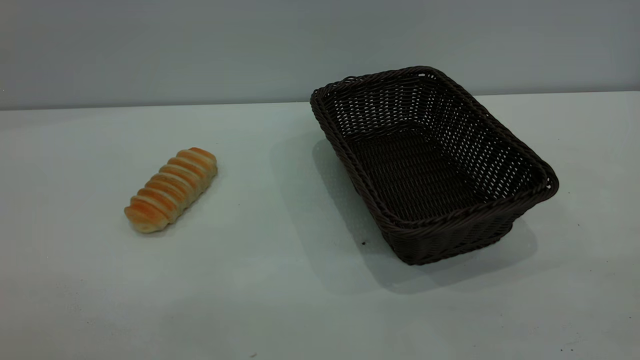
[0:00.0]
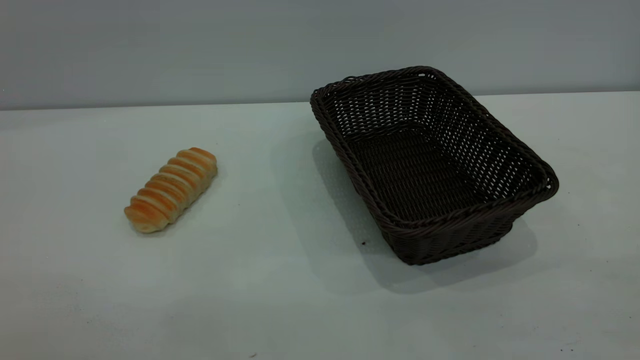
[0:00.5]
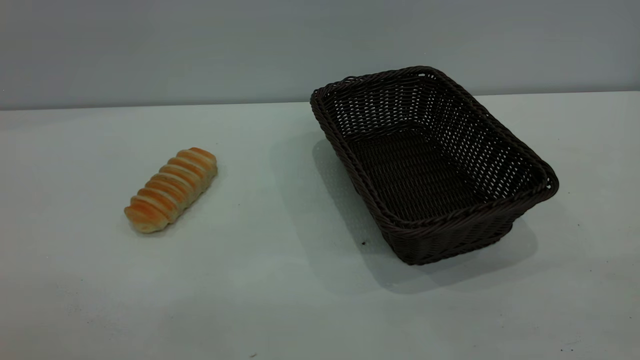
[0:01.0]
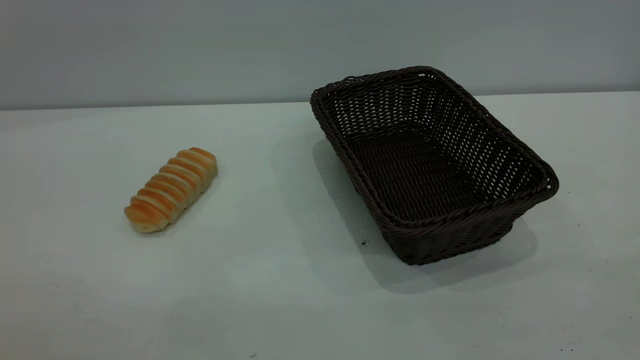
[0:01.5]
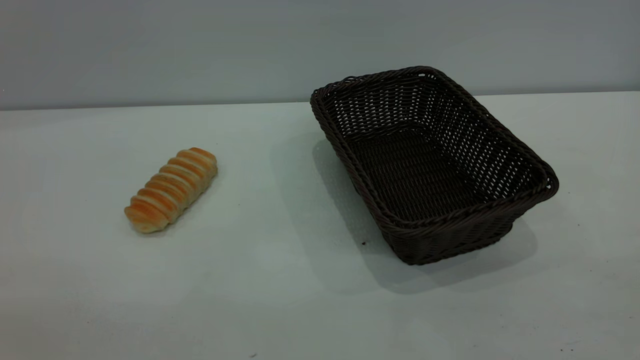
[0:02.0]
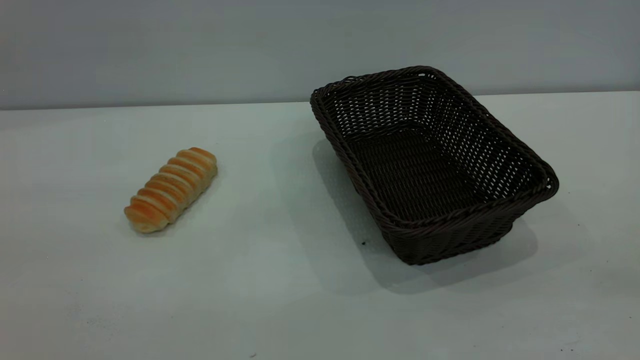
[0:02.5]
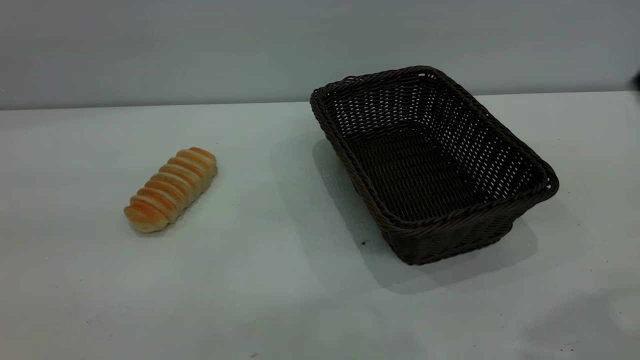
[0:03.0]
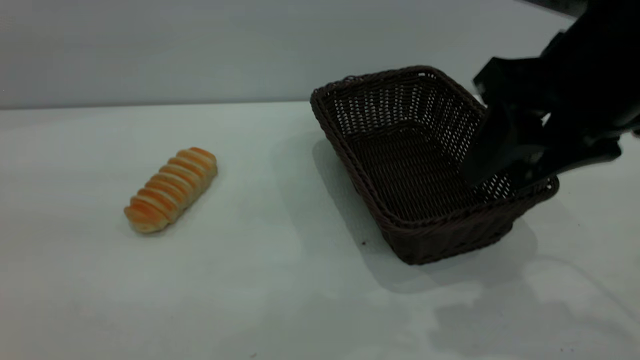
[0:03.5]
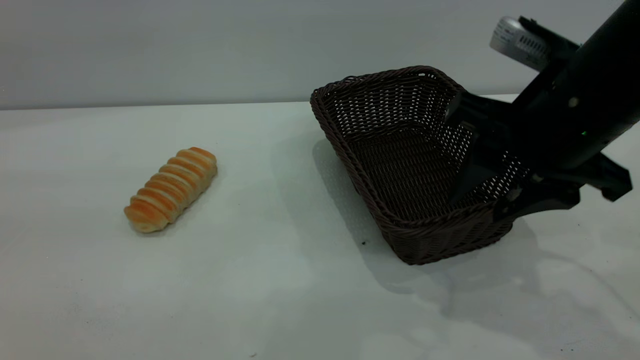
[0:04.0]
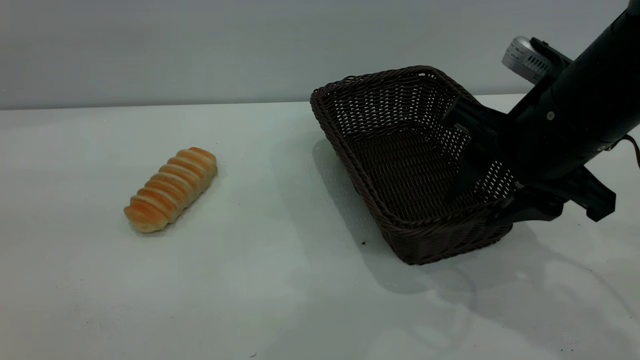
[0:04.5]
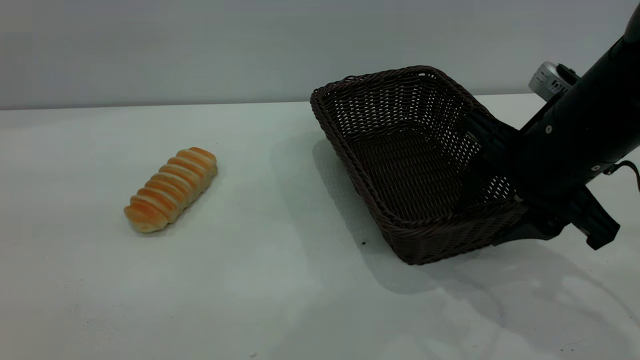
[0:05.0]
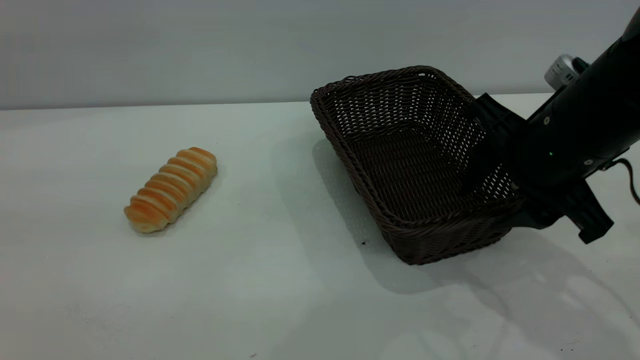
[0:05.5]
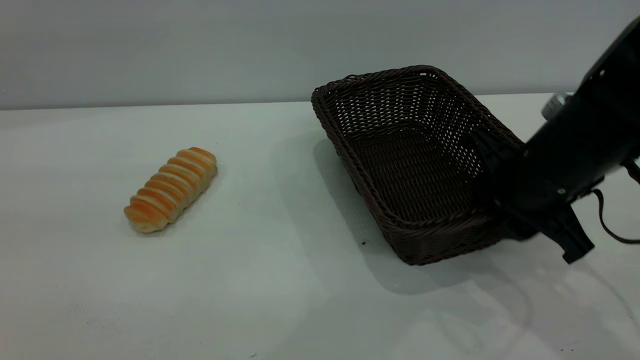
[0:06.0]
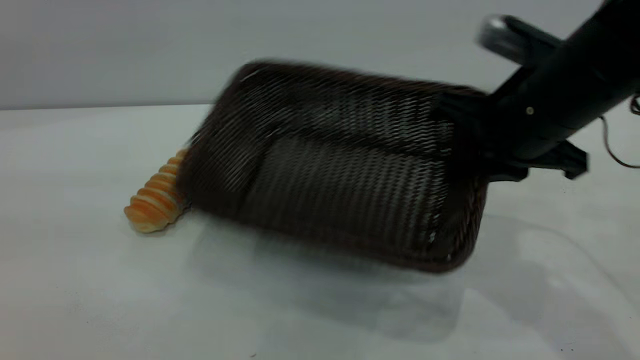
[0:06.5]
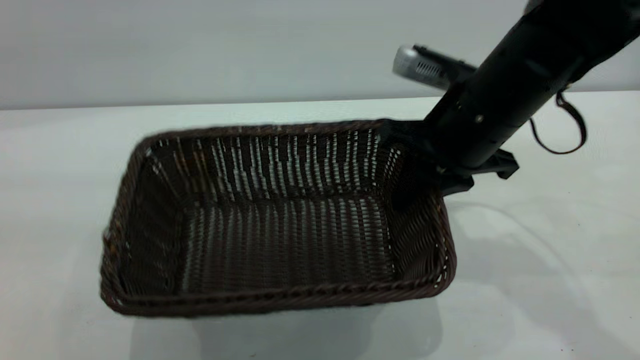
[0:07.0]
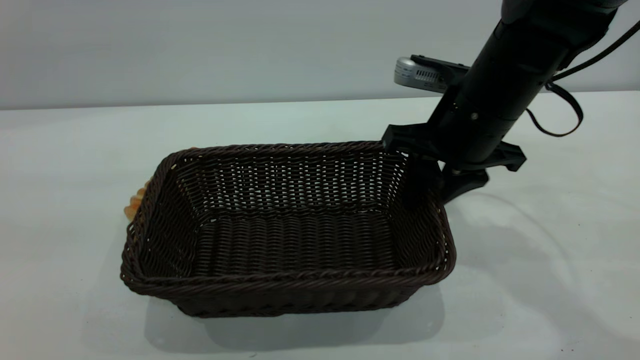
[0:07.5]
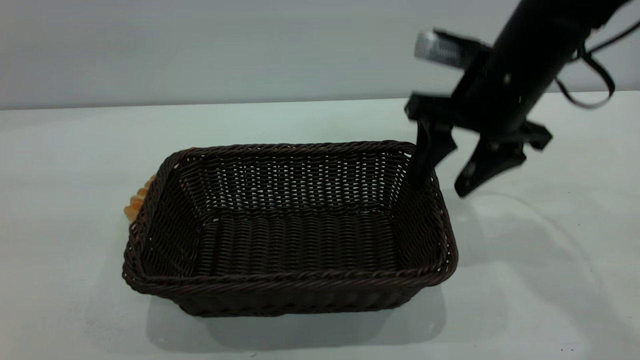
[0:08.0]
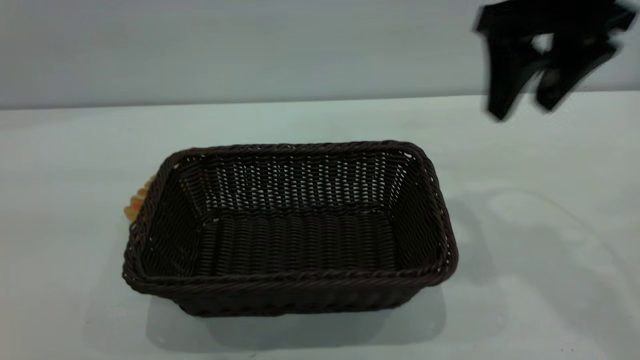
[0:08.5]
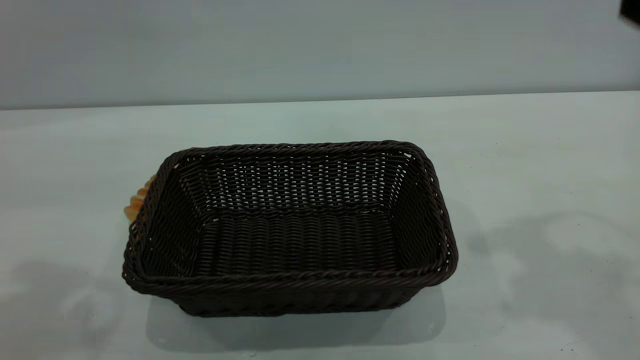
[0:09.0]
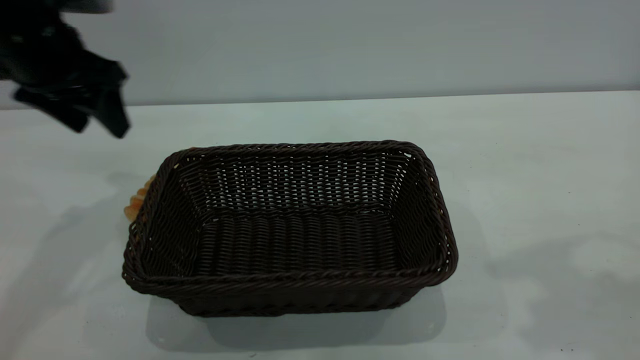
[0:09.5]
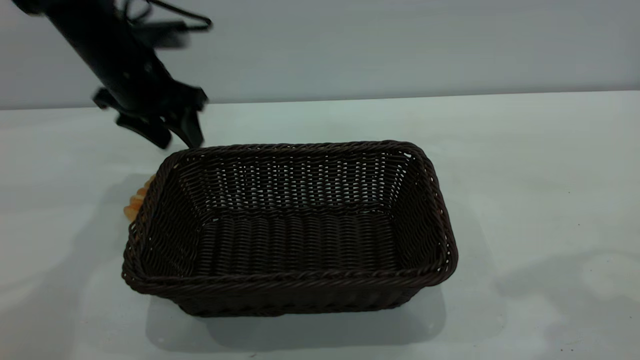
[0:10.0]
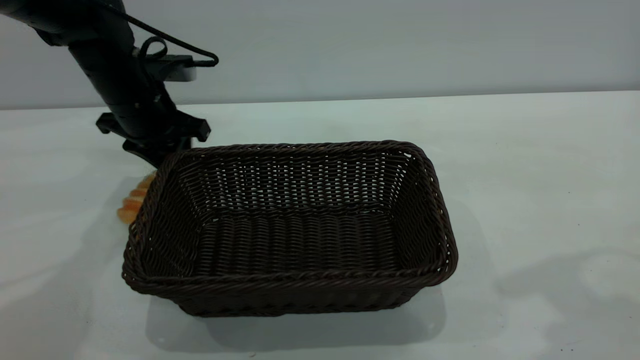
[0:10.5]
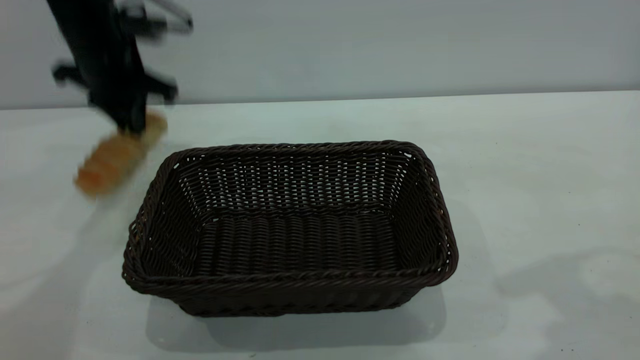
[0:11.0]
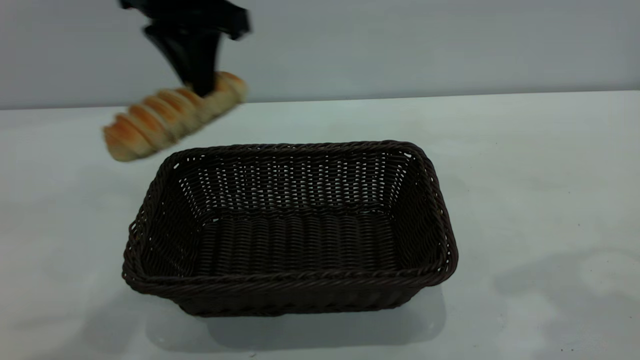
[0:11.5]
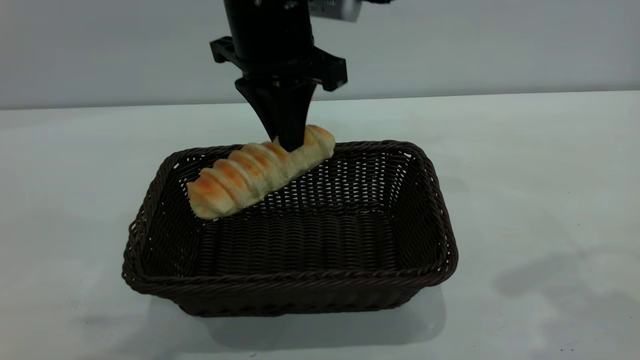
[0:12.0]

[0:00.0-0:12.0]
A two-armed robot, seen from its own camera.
Task of the whole recording: One hand grasps the black basket and places it in the middle of the table, while the other hand picks up the long bread and puts it into the black basket.
Step, 0:00.0 to 0:08.0: Move the basket to the center of view.
0:02.0 to 0:04.0: The right gripper moves forward, downward and to the left, some 35 cm.
0:04.0 to 0:06.0: The right gripper travels downward by some 5 cm, and closes.
0:06.0 to 0:08.0: The right gripper travels upward and forward by roughly 10 cm, and opens up.
0:08.0 to 0:10.0: The right gripper heads upward, backward and to the right, covering about 20 cm. Meanwhile the left gripper shifts approximately 40 cm forward and downward.
0:10.0 to 0:12.0: The left gripper moves to the right, upward and backward, approximately 20 cm, and closes up.

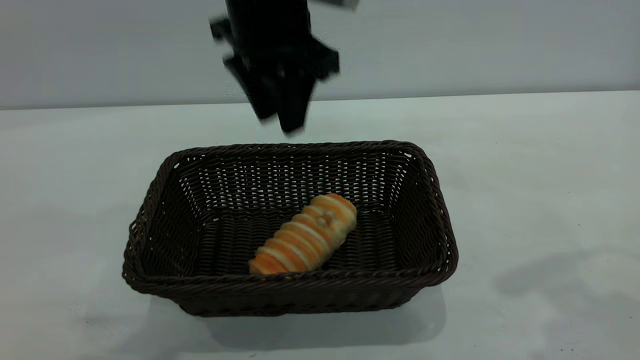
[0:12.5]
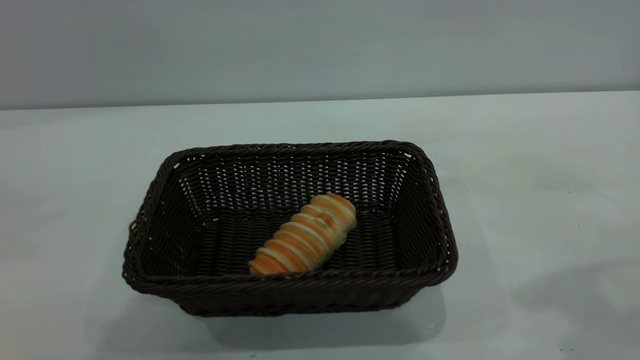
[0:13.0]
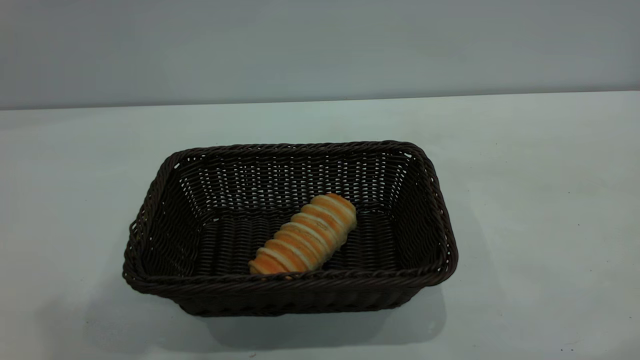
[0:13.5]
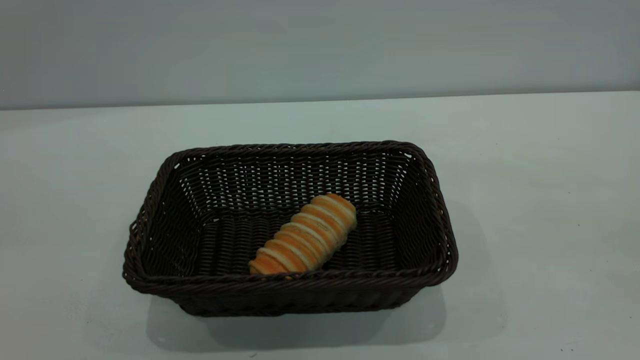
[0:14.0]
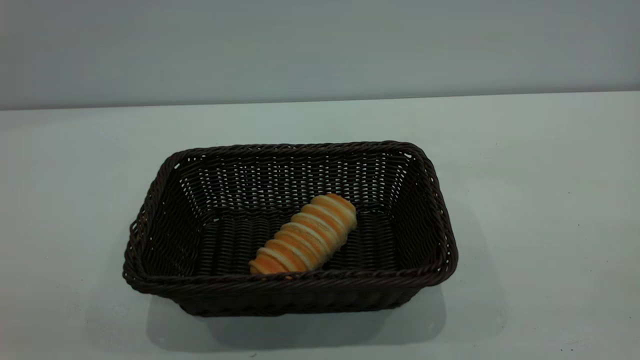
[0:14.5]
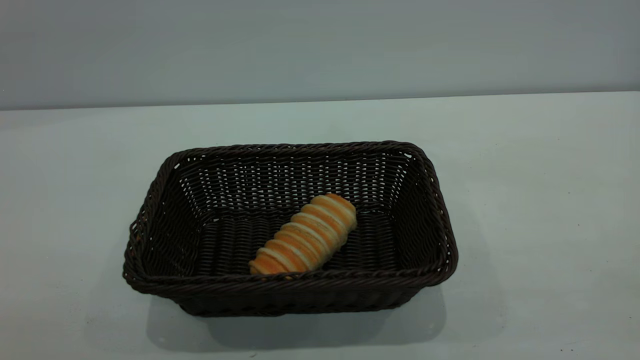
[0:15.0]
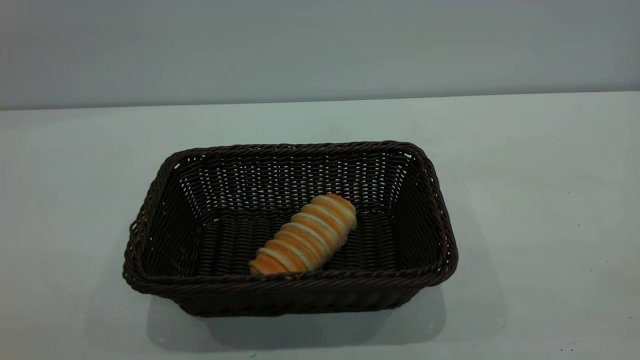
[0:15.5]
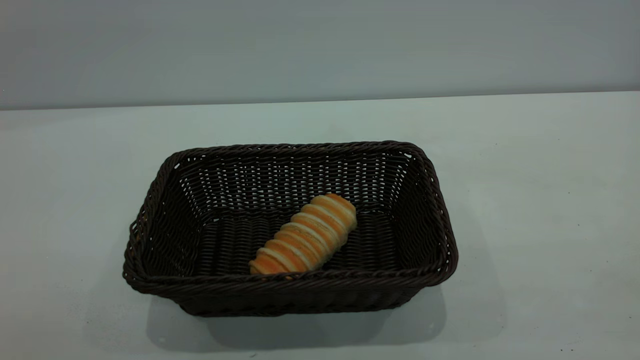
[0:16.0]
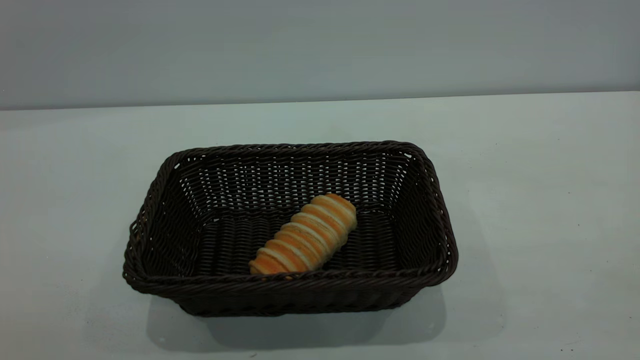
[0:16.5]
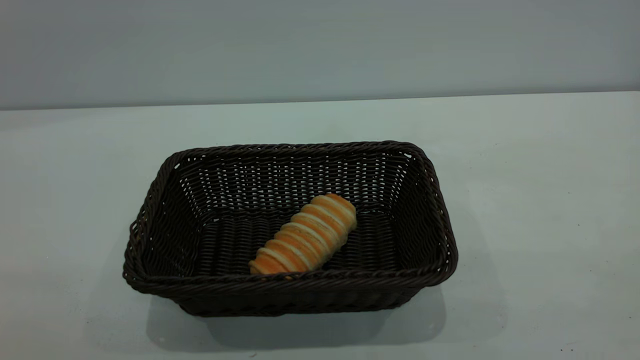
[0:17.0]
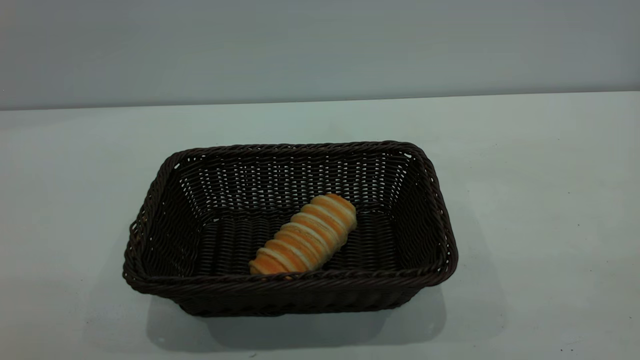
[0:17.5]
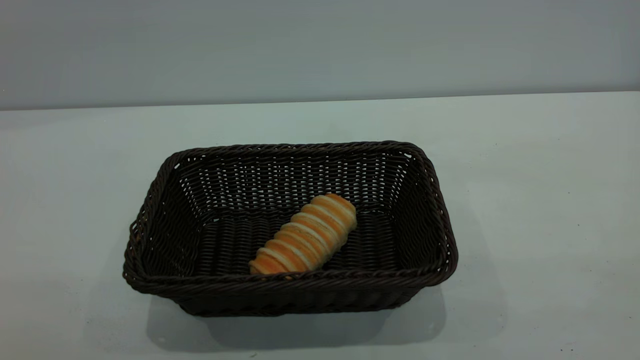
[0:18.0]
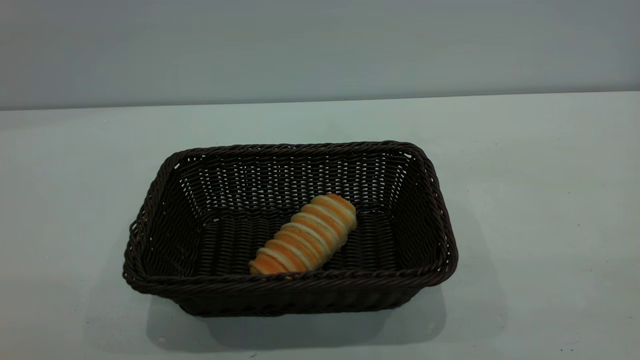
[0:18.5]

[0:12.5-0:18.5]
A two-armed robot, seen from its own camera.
Task of the whole recording: One hand grasps the black basket and places it in the middle of the table, while the other hand picks up the long bread and puts it into the black basket.
0:12.5 to 0:14.5: The left gripper is displaced backward and to the left by approximately 40 cm, while the right gripper shifts roughly 25 cm backward.

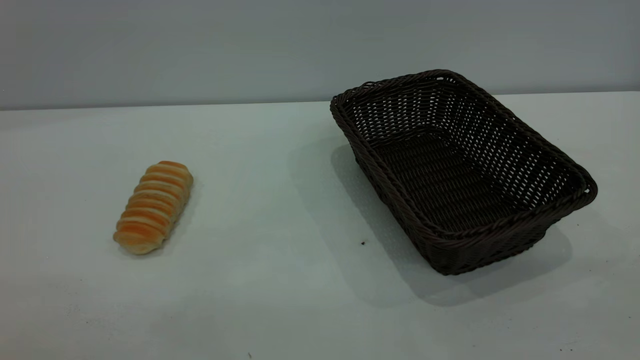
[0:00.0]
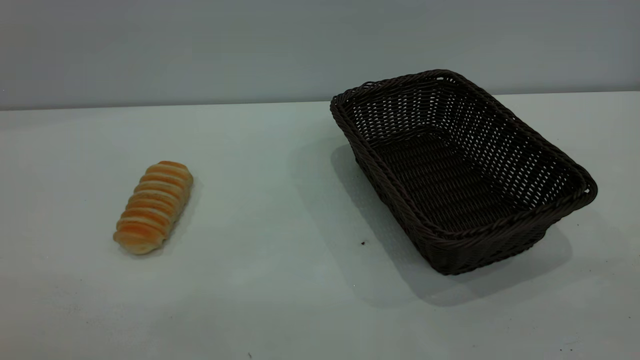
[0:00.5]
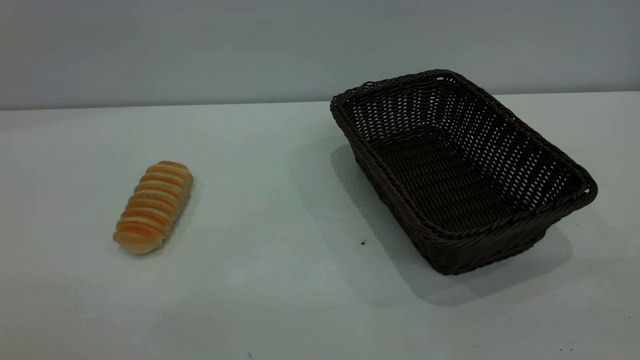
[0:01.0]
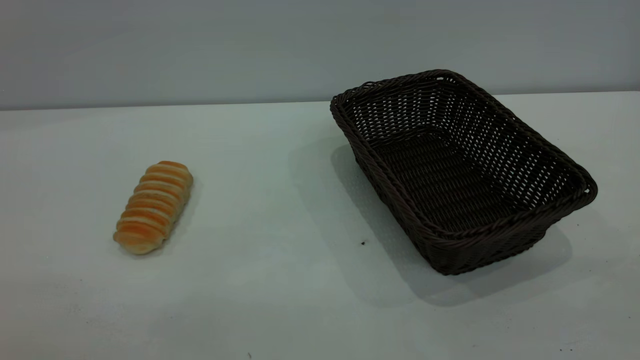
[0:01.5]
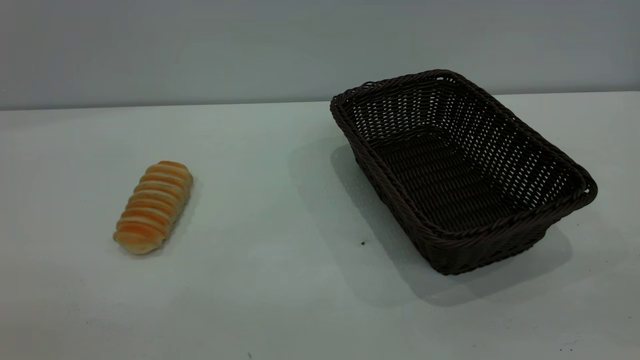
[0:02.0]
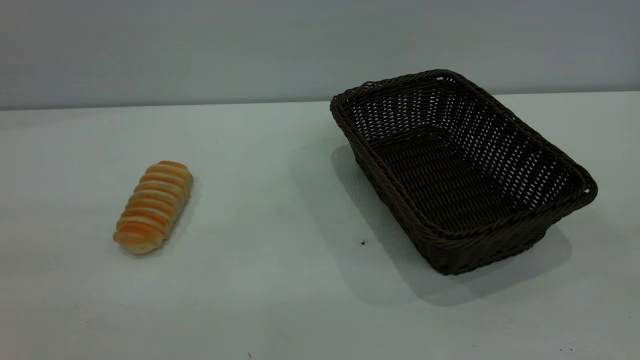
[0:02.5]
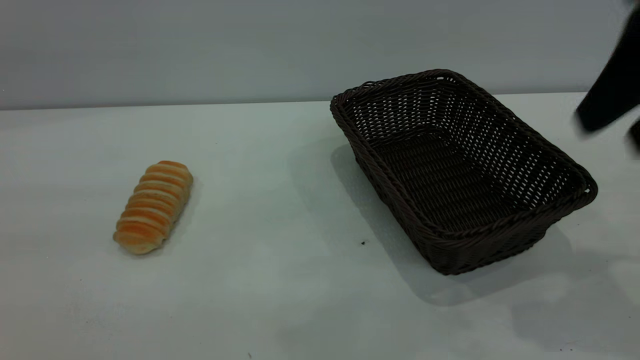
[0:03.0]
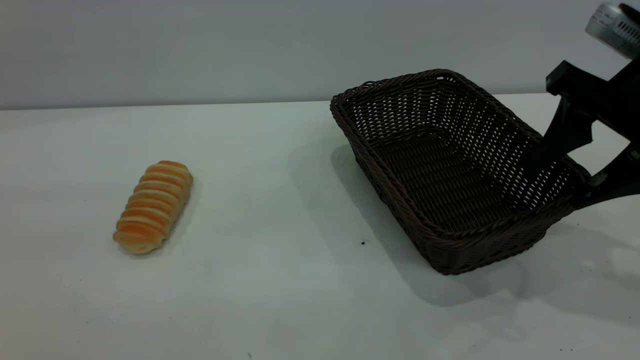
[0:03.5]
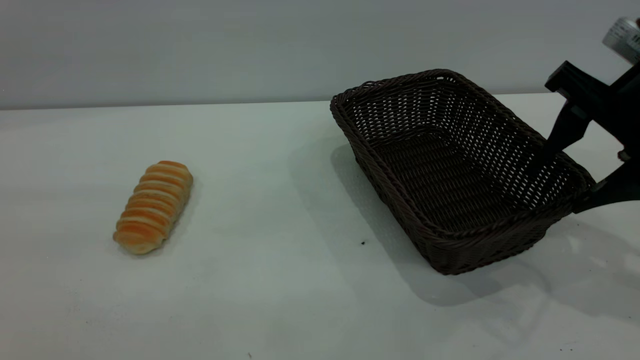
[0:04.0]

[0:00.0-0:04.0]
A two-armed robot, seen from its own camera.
Task of the whole recording: One hand grasps the black basket and places it in the middle of the table, while the other hand picks up the long bread and puts it into the black basket.
0:02.0 to 0:04.0: The right gripper shifts about 35 cm forward and downward.
